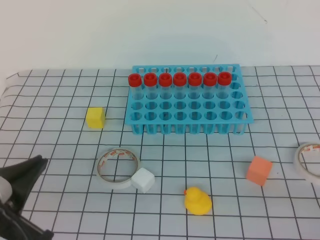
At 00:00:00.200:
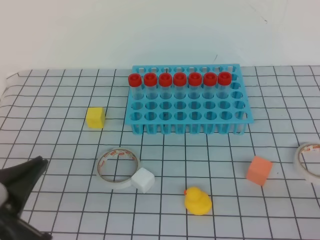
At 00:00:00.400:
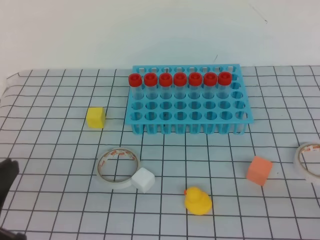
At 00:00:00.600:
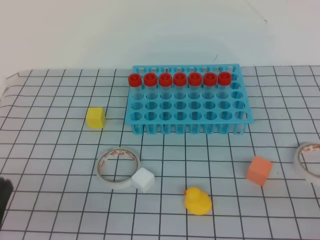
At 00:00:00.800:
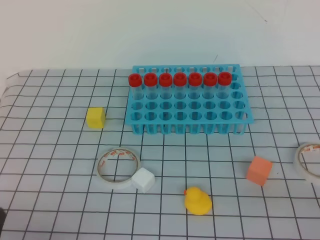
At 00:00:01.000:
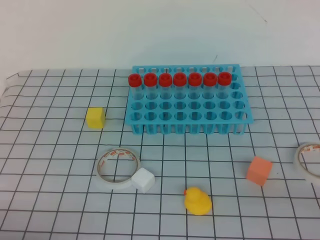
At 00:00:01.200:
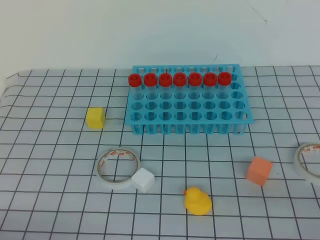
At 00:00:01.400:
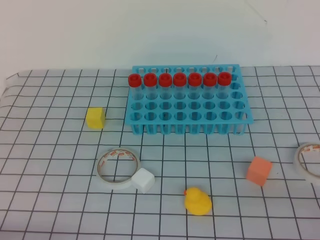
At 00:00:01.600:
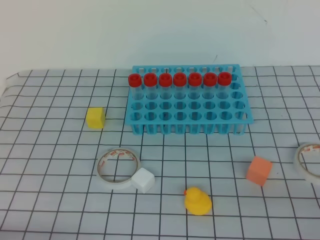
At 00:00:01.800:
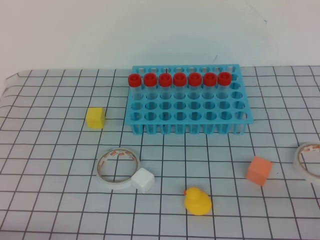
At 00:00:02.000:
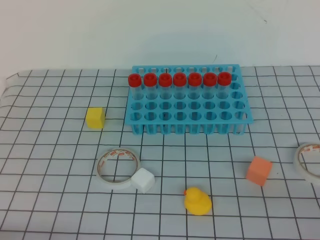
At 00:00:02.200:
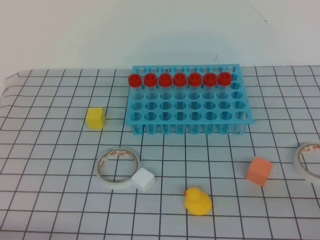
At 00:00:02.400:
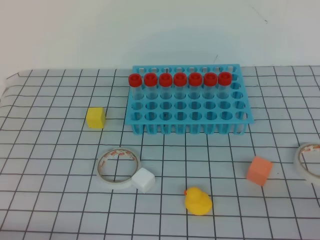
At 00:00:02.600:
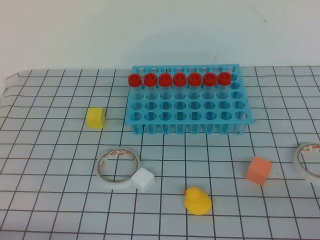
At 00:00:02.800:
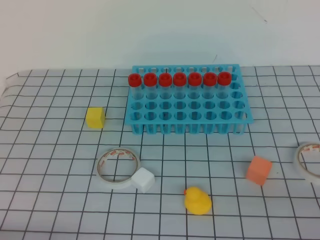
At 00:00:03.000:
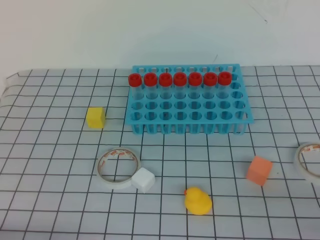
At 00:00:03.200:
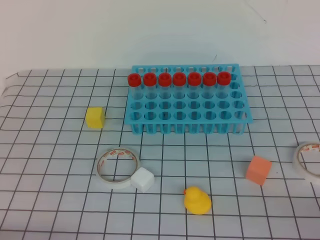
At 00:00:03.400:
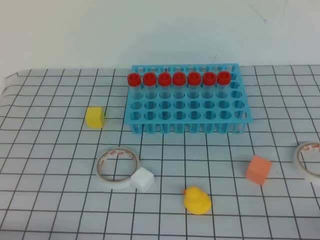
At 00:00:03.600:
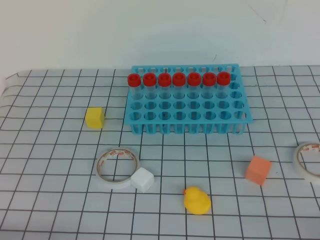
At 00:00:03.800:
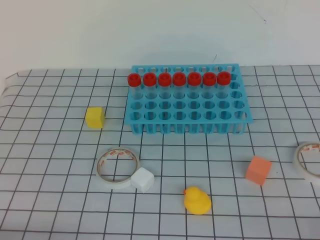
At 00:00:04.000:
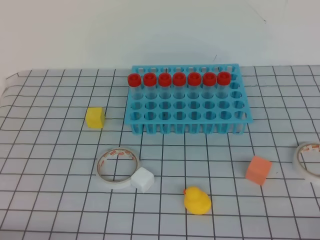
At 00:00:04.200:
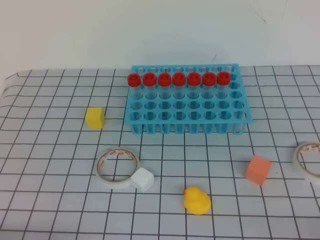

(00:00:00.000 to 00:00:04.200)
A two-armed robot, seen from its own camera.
00:00:00.000 - 00:00:01.400: The left gripper shifts approximately 15 cm downward, backward and to the left.
